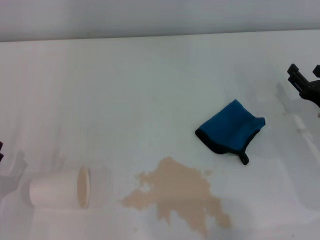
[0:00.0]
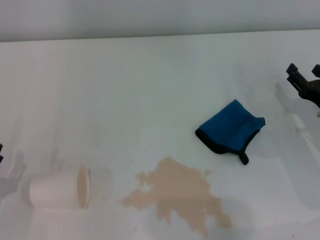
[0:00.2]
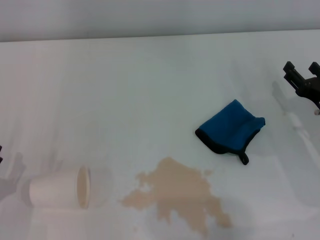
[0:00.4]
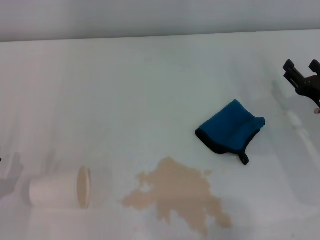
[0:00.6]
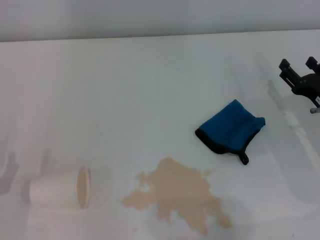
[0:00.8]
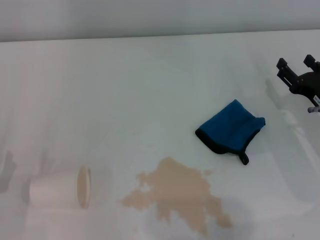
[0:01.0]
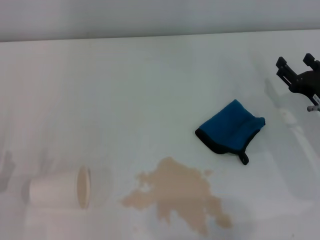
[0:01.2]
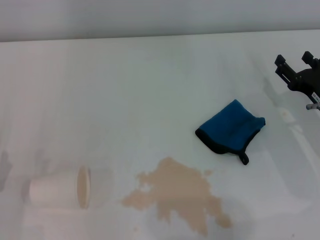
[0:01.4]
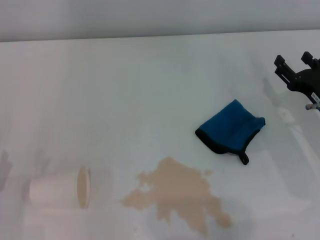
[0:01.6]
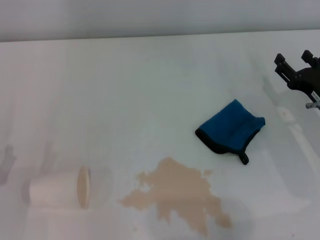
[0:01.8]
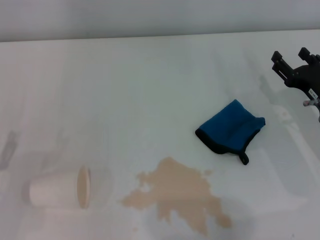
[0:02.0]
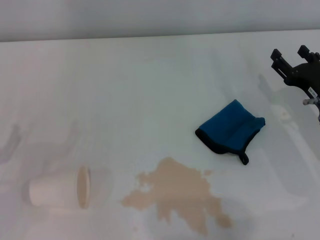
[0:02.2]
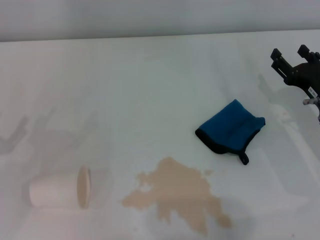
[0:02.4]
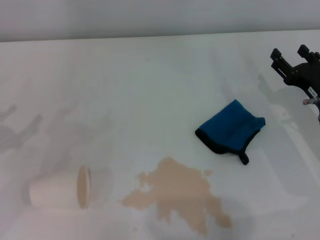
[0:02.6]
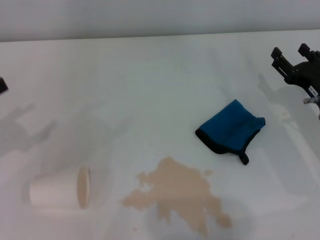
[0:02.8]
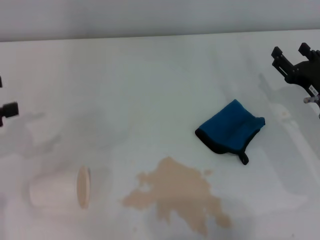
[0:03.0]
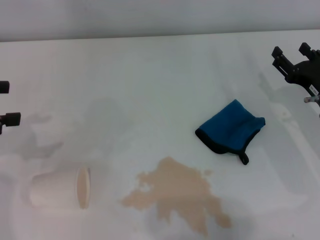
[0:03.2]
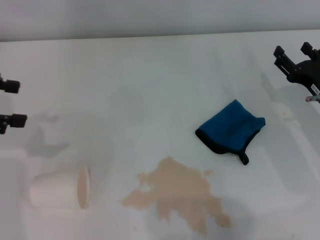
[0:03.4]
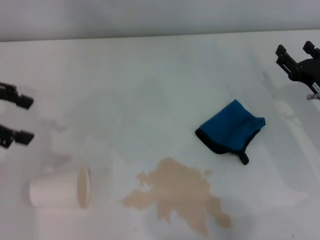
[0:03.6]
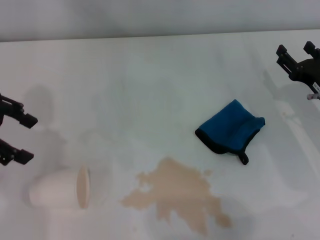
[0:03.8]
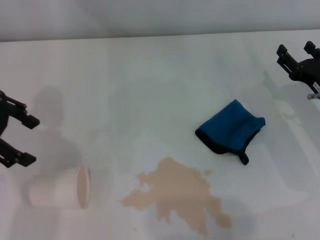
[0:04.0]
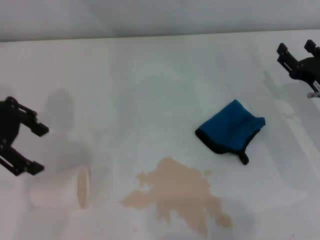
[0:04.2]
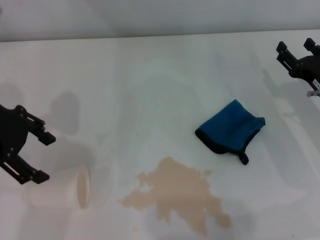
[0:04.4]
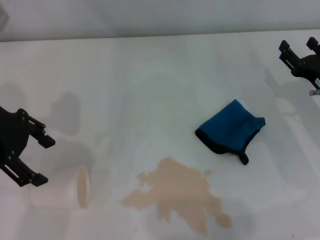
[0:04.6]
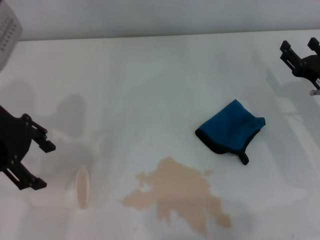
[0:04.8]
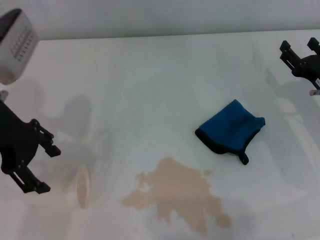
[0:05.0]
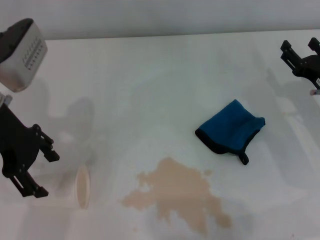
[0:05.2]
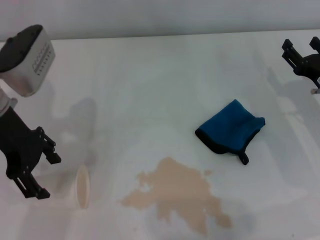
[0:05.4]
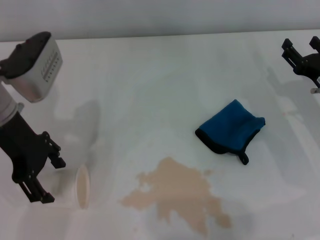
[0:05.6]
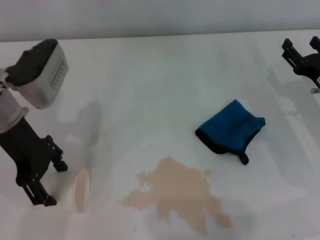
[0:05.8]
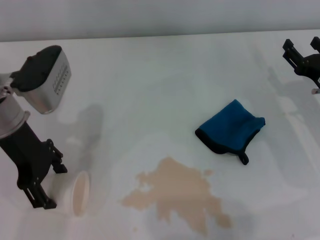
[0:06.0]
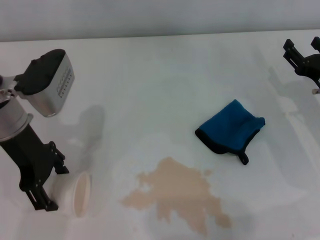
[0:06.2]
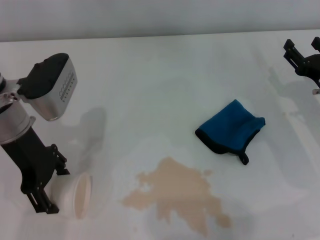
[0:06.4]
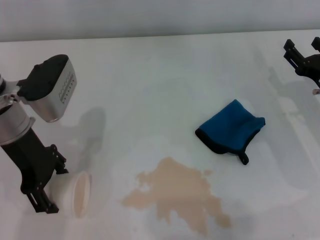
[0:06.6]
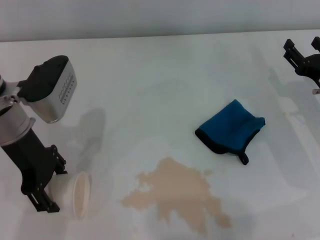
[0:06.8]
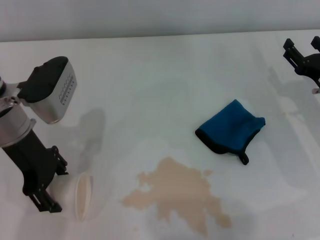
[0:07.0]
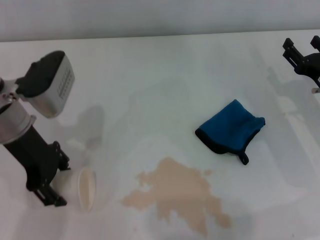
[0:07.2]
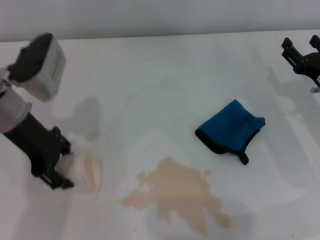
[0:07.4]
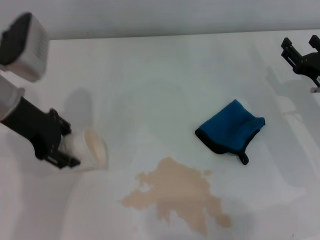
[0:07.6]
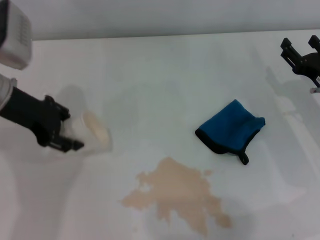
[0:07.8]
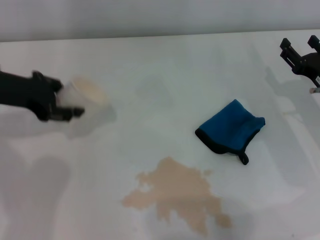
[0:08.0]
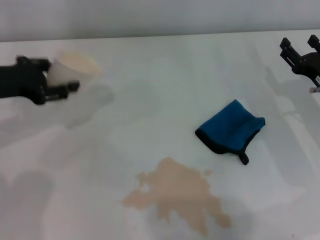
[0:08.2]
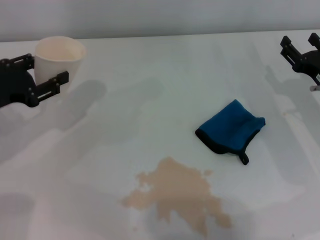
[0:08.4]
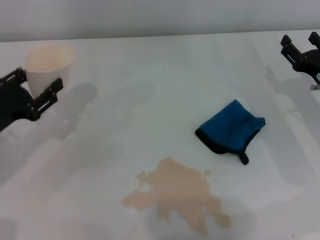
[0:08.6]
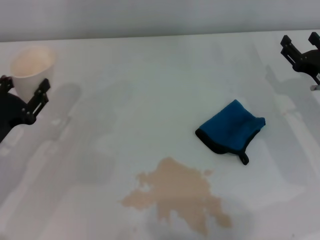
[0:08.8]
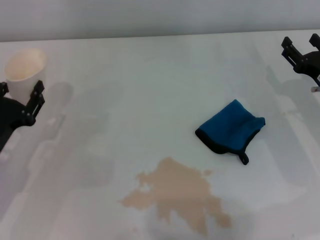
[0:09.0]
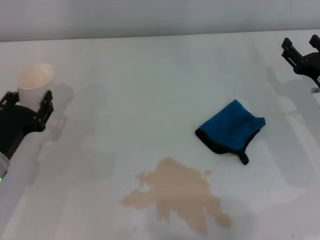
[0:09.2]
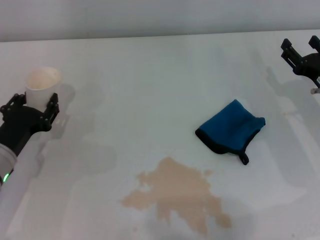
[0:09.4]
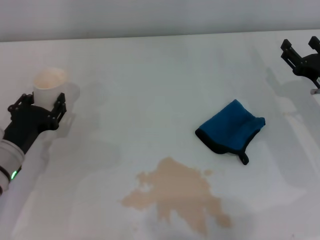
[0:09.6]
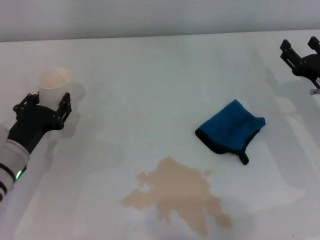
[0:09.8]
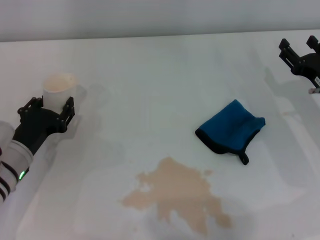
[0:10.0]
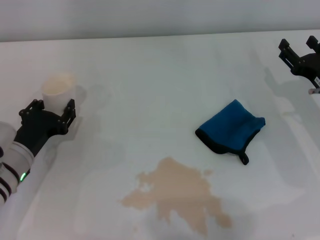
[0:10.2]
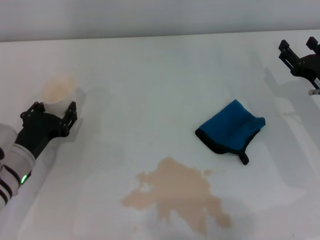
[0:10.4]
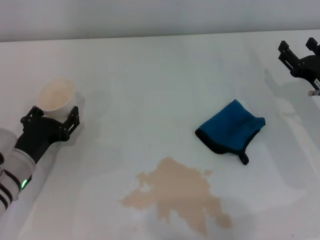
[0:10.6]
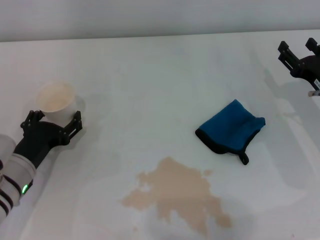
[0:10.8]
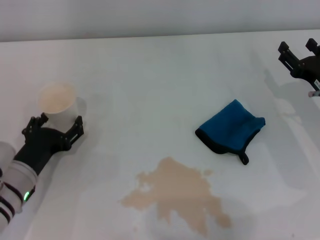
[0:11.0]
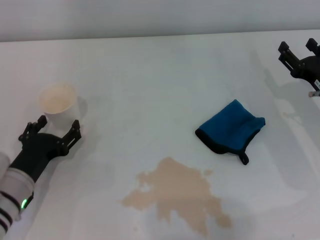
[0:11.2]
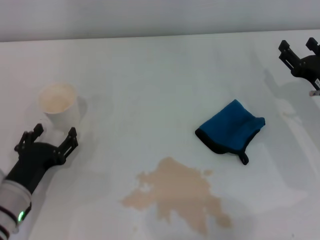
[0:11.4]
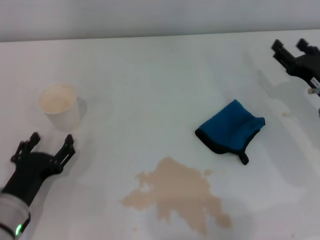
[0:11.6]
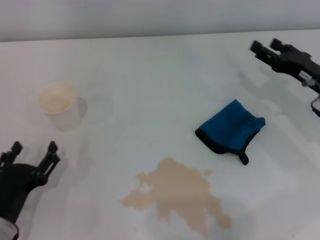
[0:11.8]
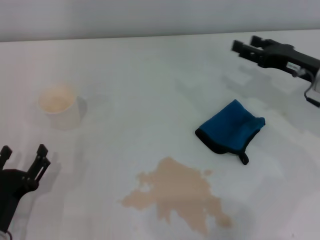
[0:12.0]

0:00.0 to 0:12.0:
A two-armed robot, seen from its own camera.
Step, 0:00.0 to 0:06.6: Grasp the paper cup with the left gripper.
Step, 0:06.8 to 0:10.6: Stand the paper cup upright with the left gripper.
0:00.0 to 0:01.6: There are only small adjustments of the grippers.
0:03.0 to 0:04.4: The left gripper heads to the right, upward and forward, covering about 15 cm.
0:04.4 to 0:06.0: The left gripper is displaced downward by some 5 cm.
0:06.0 to 0:07.6: The left gripper closes its fingers.
0:07.6 to 0:09.0: The left gripper shifts some 15 cm downward and backward.
0:09.0 to 0:10.4: The left gripper changes place by about 5 cm.
0:10.4 to 0:12.0: The left gripper is displaced backward by about 10 cm, and opens its fingers; the right gripper heads upward, covering roughly 5 cm.

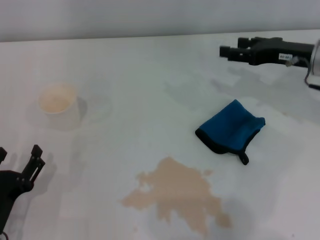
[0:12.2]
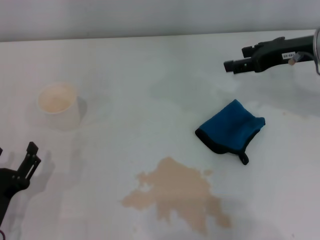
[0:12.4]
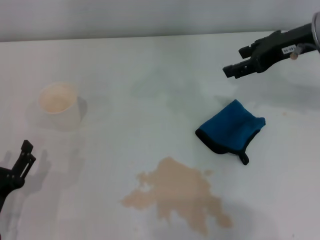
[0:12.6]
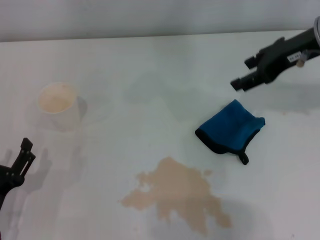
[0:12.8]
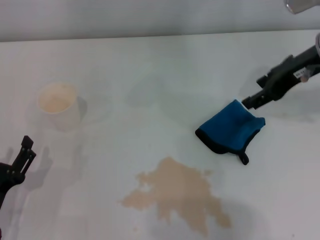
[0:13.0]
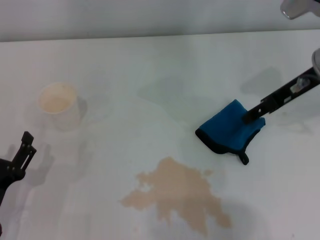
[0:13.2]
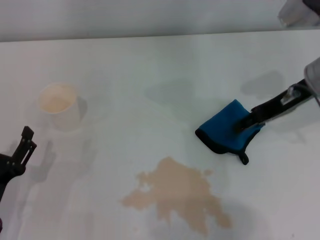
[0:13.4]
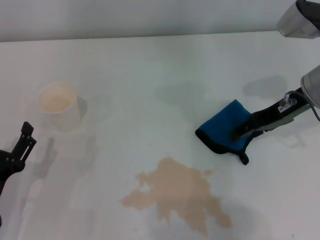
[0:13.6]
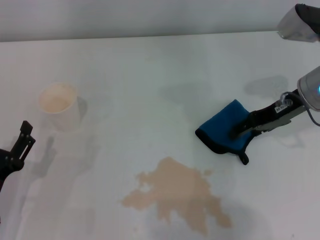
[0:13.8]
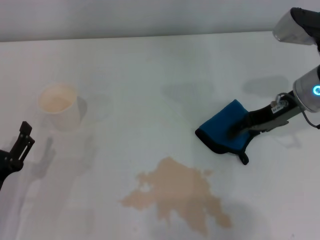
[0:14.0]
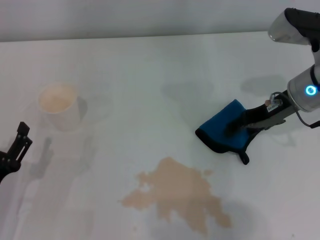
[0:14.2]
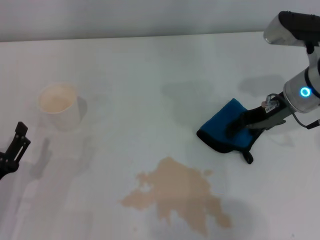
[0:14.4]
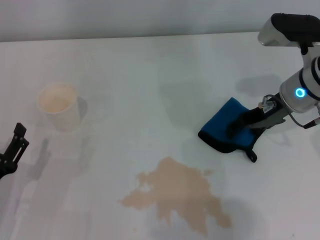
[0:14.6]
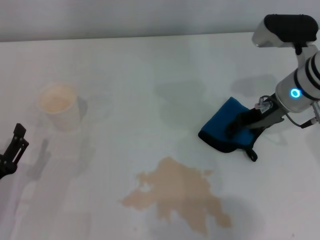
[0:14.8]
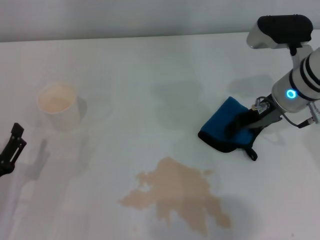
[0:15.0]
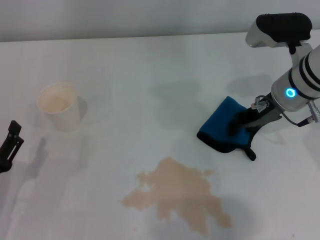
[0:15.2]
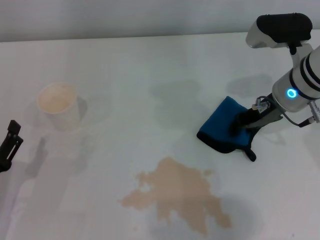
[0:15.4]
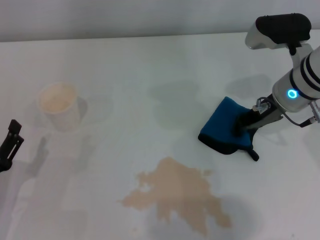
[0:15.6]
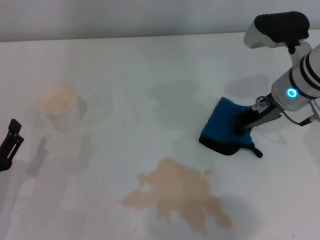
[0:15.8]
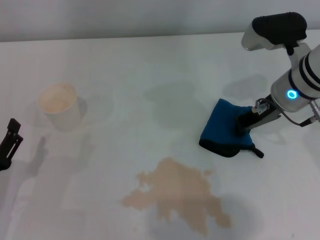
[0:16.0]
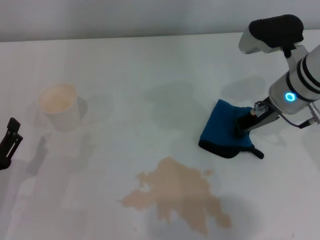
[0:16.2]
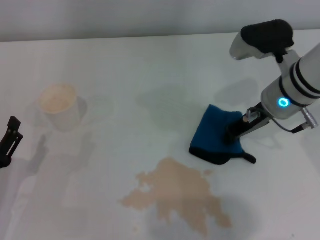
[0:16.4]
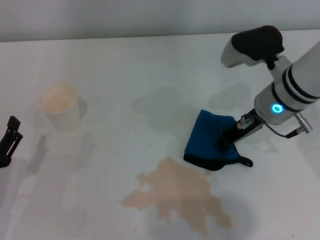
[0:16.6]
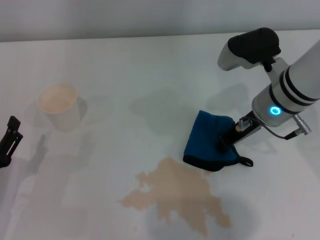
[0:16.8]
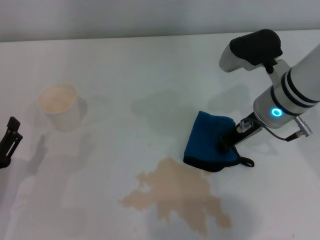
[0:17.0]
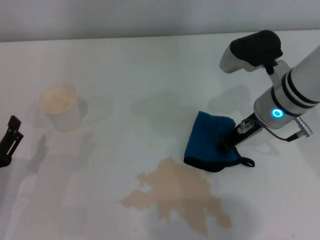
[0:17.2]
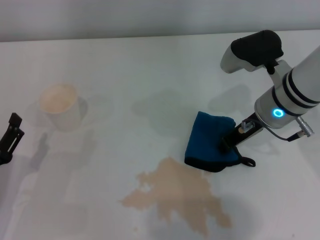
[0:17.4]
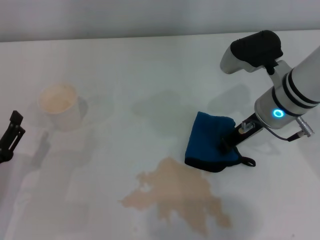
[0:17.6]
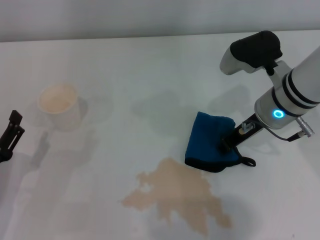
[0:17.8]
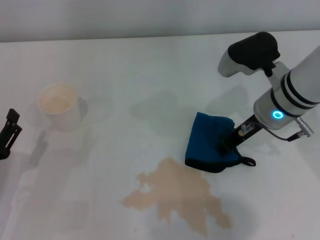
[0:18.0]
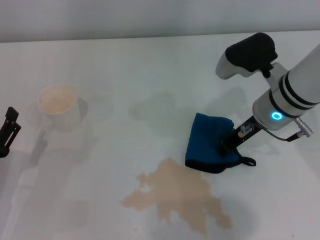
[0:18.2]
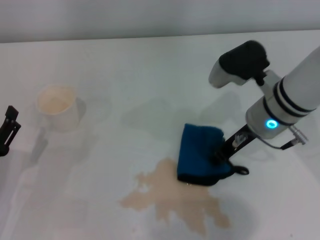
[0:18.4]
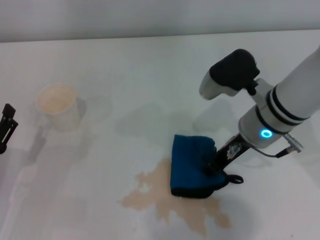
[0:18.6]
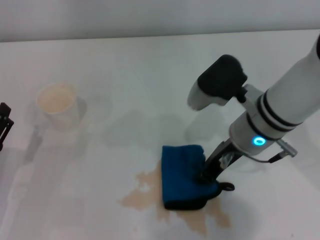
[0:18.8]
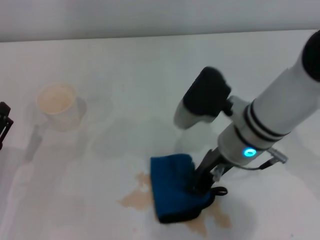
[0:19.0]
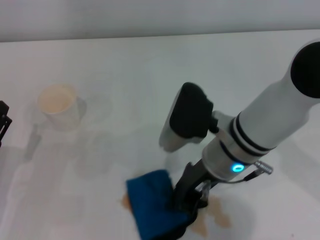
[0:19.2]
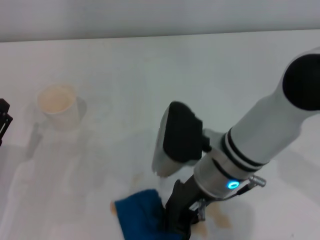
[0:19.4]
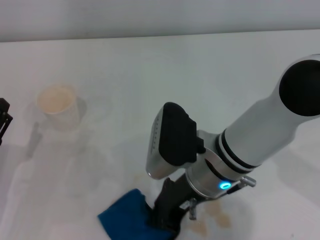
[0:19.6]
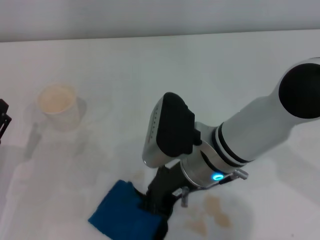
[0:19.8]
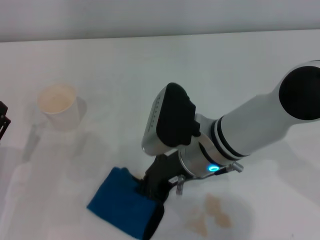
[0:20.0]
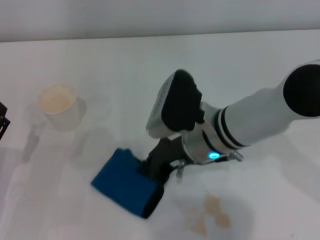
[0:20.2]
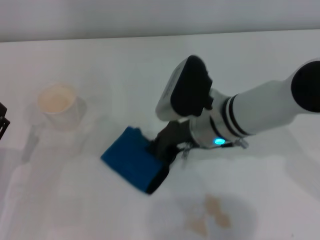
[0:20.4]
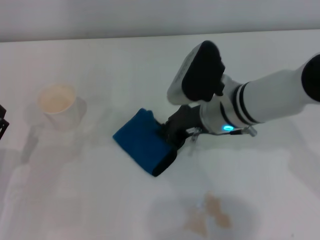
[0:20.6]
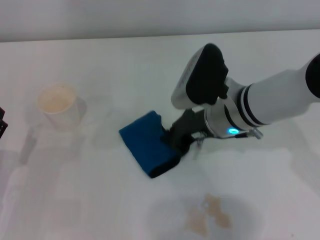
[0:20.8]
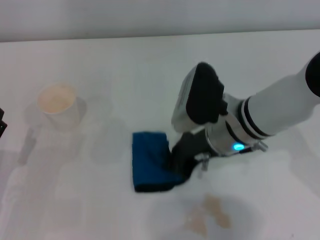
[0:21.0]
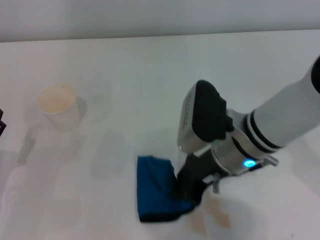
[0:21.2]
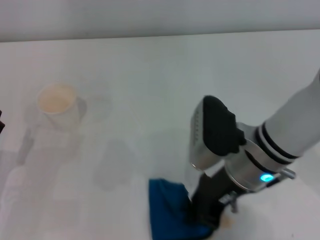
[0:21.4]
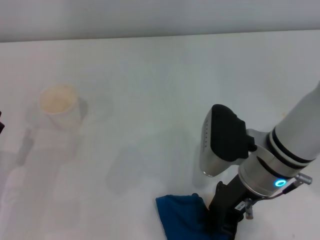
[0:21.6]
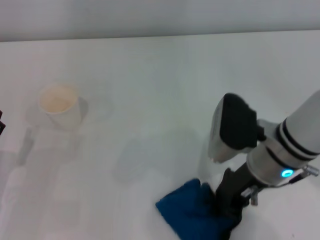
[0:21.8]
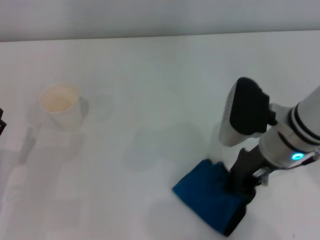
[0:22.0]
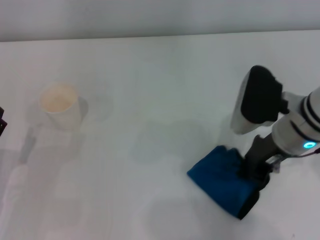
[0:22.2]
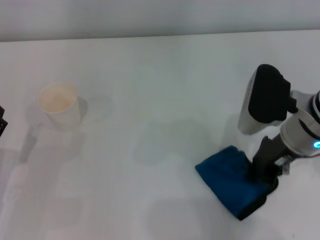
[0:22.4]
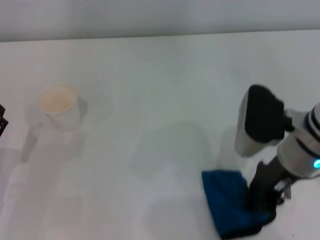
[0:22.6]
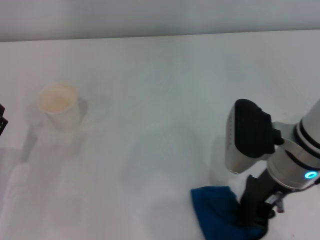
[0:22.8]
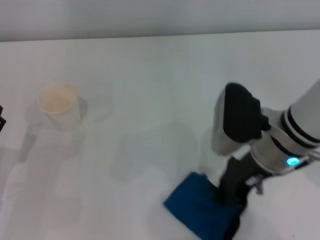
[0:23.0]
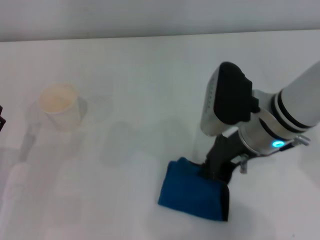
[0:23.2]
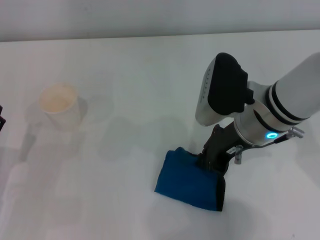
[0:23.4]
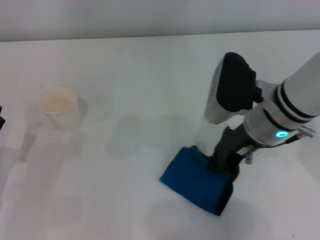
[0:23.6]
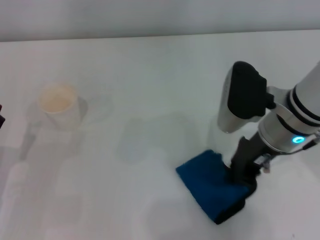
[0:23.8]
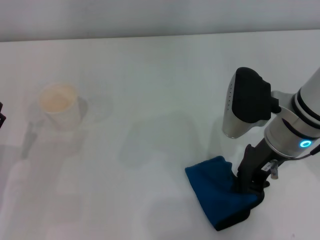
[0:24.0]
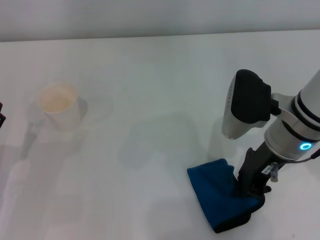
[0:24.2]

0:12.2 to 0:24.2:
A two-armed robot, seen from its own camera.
Step, 0:12.2 to 0:14.8: Grasp the rag with the right gripper.
Step, 0:15.0 to 0:23.8: Wipe the stains off the table with the right gripper.
0:12.2 to 0:13.8: The right gripper reaches approximately 10 cm upward, then returns.
0:13.8 to 0:15.2: The grippers move only a little.
0:15.2 to 0:16.6: The right gripper closes its fingers.
0:16.6 to 0:18.2: There are only small adjustments of the grippers.
0:18.2 to 0:19.8: The right gripper shifts some 15 cm to the left and backward.
0:21.2 to 0:22.6: The right gripper travels to the right by about 5 cm.
0:22.6 to 0:24.2: The grippers move only a little.
